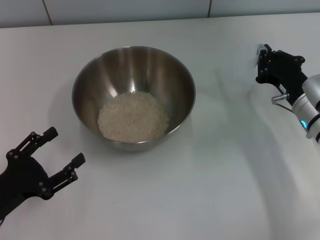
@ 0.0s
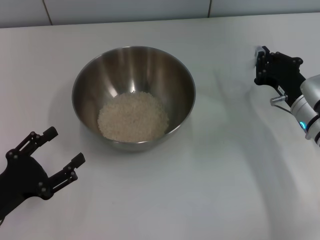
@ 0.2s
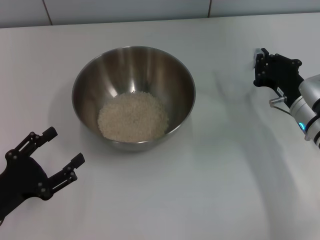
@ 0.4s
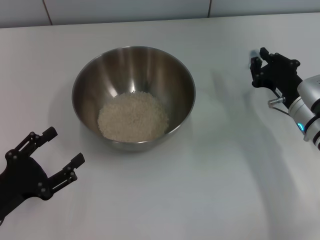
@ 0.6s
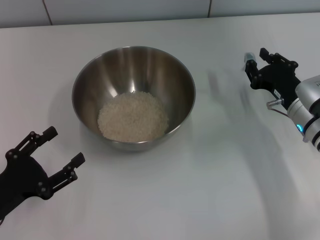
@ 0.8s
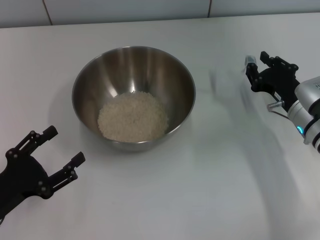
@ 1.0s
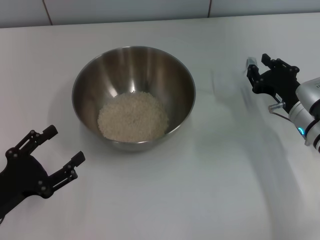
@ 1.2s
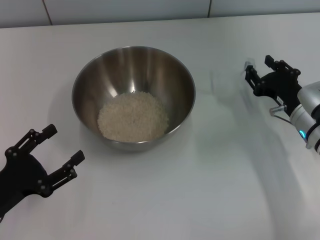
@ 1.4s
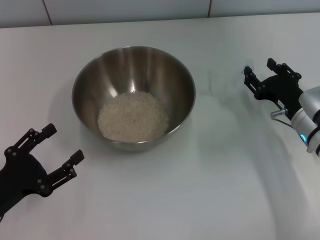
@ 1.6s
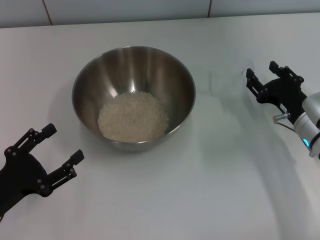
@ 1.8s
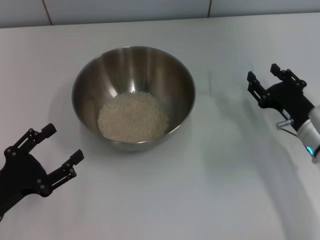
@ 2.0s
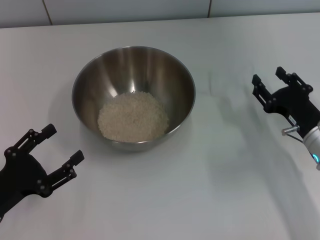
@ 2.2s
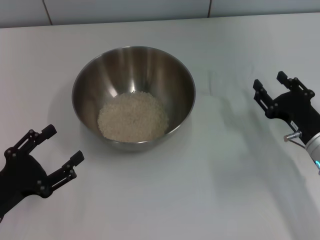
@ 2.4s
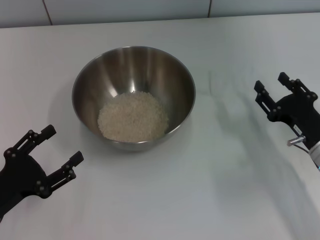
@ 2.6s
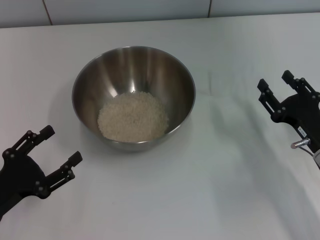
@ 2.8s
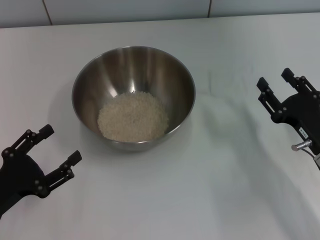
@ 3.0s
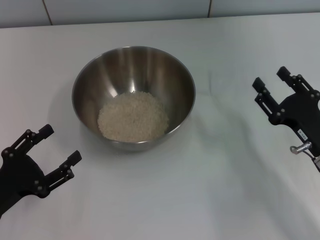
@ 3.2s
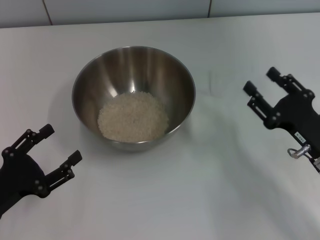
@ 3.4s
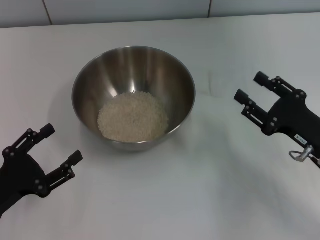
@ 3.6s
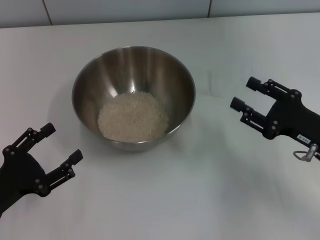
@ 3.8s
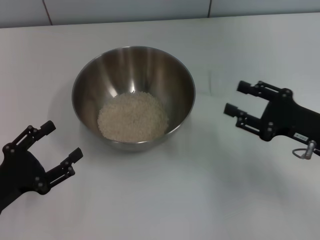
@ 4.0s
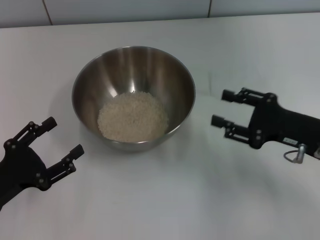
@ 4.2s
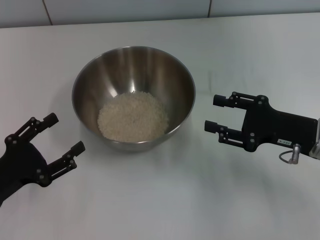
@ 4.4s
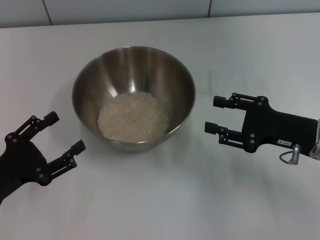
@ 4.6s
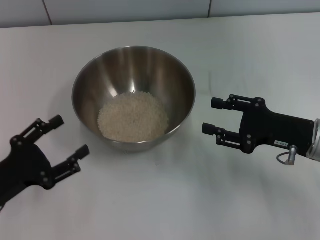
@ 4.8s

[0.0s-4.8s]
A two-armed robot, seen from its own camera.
Task of the whole recording: Place the bowl in the middle of the table with one hand and pour the rice from the grain cup into it with the other hand.
Step, 0.0s to 2.0s: Place the cup on the table with the right gripper.
0.0s to 1.6s: The right gripper opens its fingers.
1.6s to 3.2s: The right gripper travels backward by about 10 cm.
3.2s to 4.8s: The right gripper ends up about 5 cm from where it was.

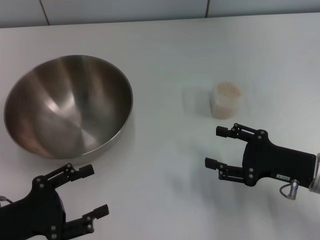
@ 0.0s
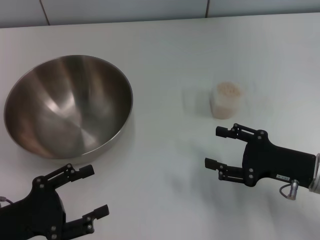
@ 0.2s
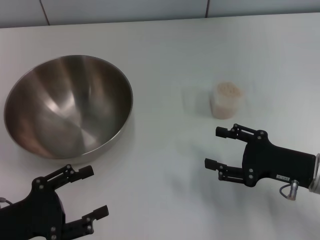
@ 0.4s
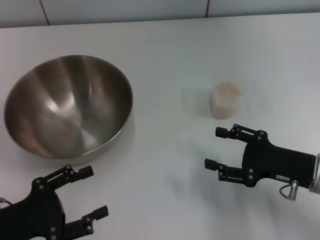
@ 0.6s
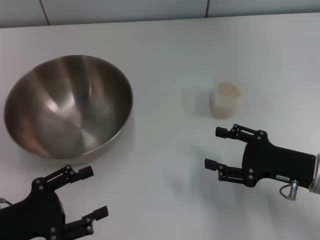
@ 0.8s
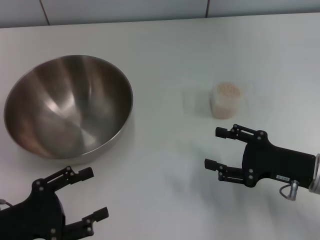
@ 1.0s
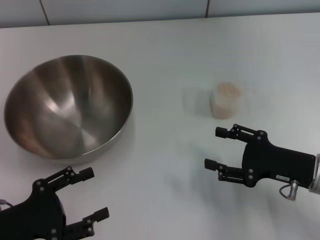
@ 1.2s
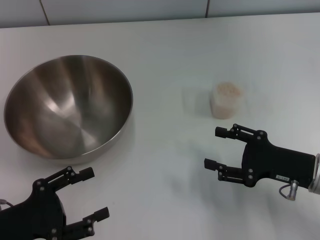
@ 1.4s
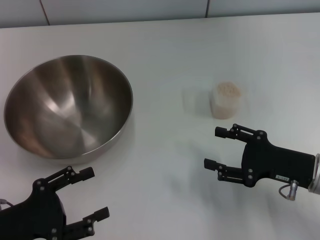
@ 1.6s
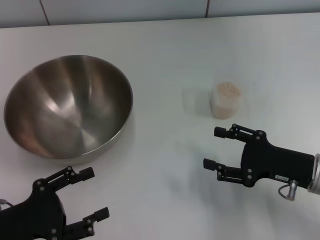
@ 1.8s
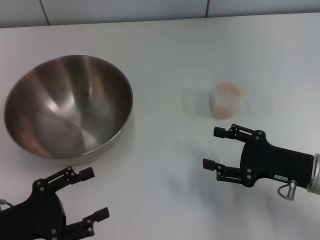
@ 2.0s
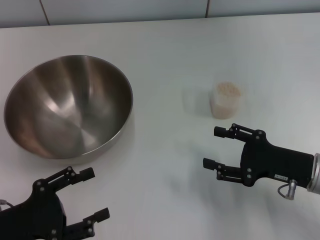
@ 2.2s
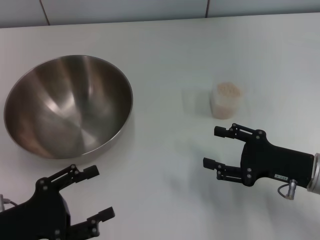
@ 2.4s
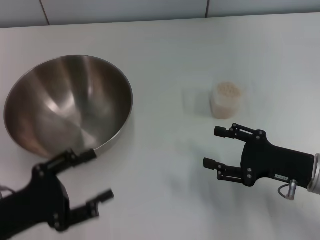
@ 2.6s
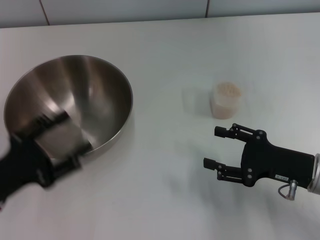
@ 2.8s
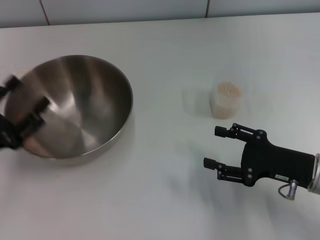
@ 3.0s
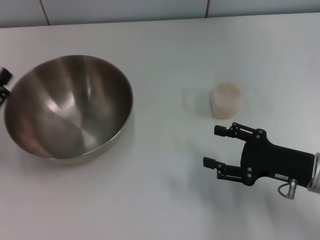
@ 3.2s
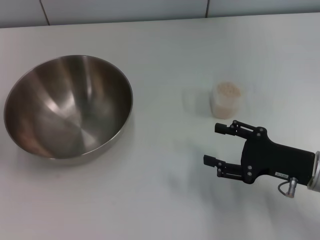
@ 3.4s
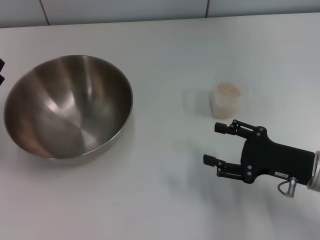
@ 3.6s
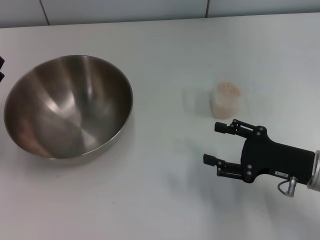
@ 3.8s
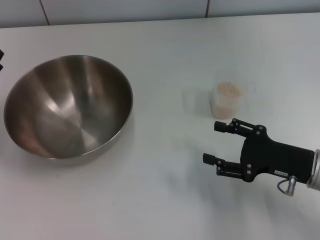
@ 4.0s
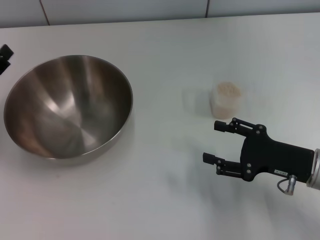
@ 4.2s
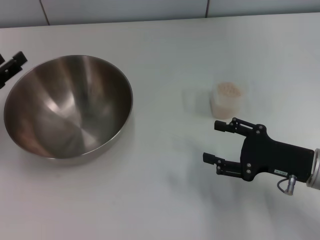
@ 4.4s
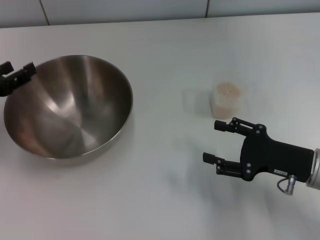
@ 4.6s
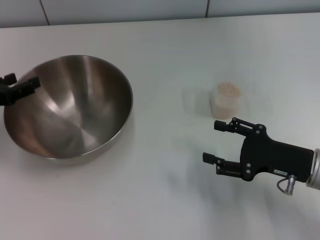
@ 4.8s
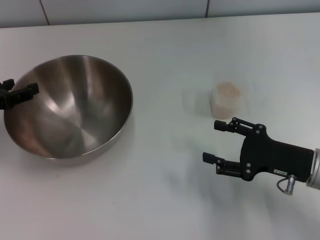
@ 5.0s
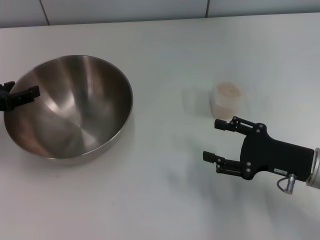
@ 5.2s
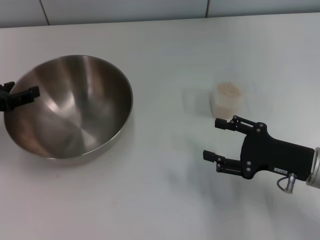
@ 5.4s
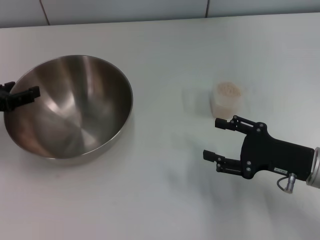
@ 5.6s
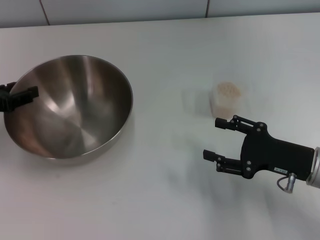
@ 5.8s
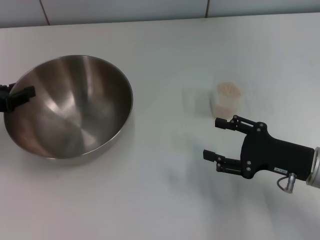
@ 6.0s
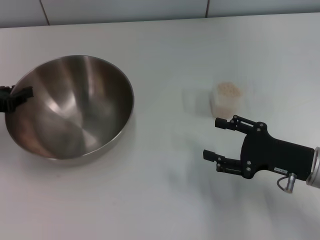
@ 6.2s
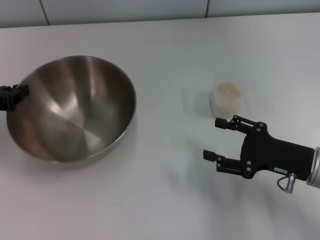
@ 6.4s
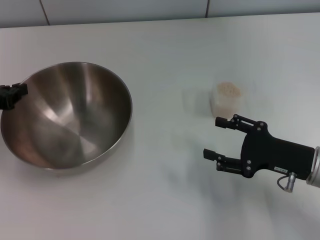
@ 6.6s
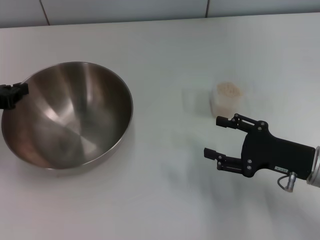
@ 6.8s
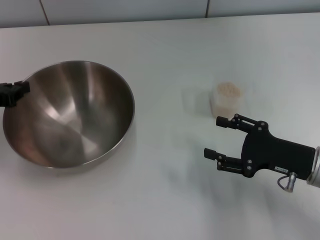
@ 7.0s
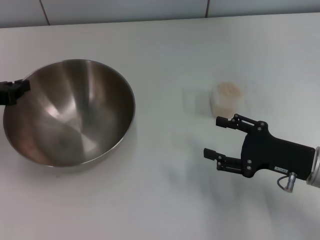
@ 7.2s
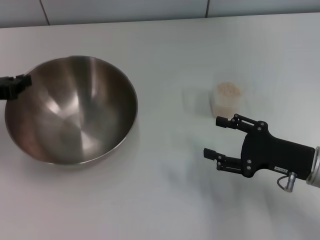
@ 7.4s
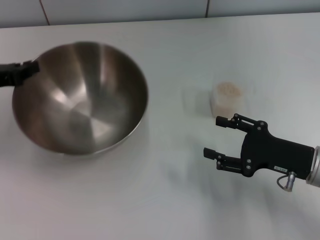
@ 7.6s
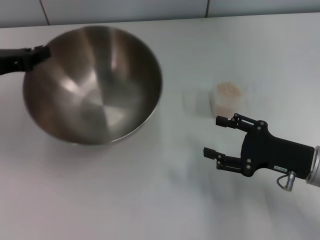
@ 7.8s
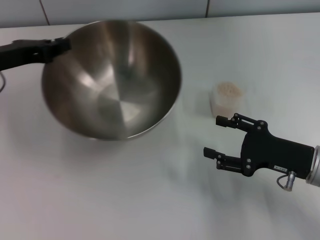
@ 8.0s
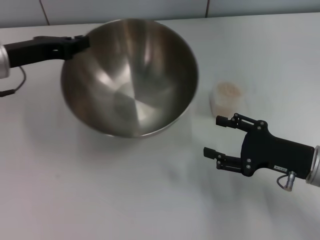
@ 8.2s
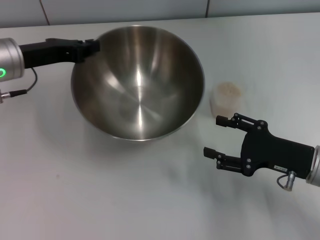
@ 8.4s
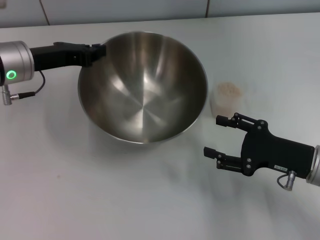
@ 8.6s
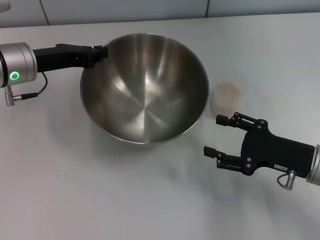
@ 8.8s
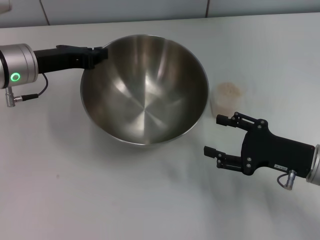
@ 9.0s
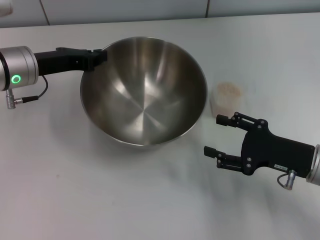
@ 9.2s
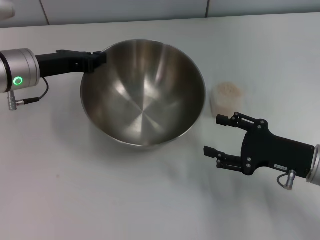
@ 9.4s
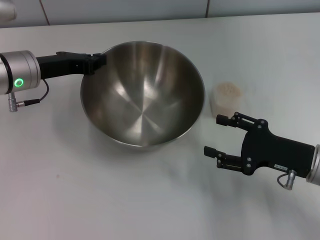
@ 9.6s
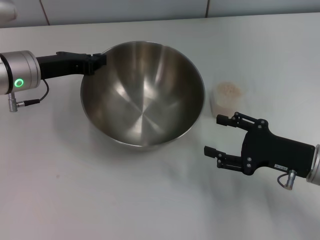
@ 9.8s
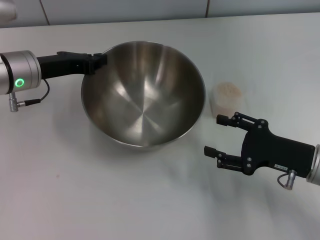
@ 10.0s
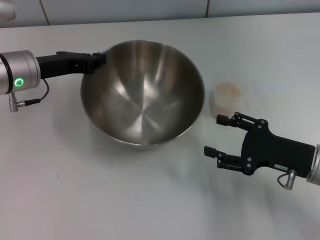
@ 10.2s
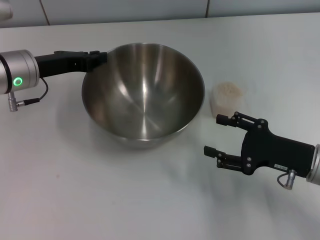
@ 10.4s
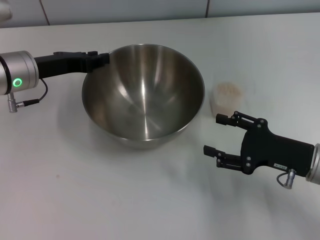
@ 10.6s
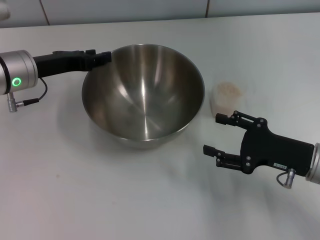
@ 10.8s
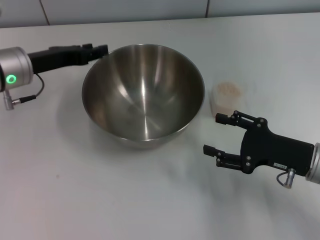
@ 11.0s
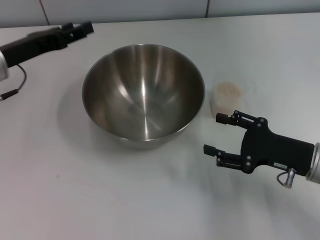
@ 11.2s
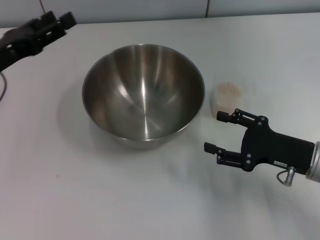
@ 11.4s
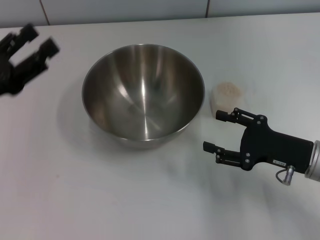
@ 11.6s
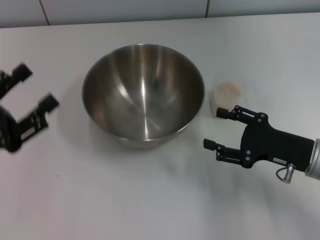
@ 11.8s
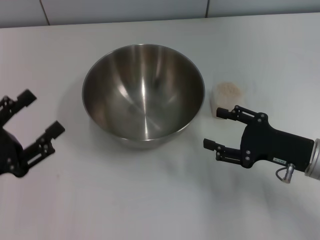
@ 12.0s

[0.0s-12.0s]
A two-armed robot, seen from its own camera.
Task of the whole recording: Place the bowl in the middle of the table with one hand and pour the rice from the grain cup into it with the other hand.
Step, 0.0s to 7.6s: Pick up the bowl with the left gripper.
Step, 7.8s to 11.2s: Place the bowl in the center of view with the left gripper.
0.0s to 1.6s: Both grippers stay put.
1.6s to 3.0s: The left gripper shifts by approximately 5 cm.
3.0s to 4.4s: The left gripper heads forward, covering roughly 10 cm.
6.0s to 7.6s: The left gripper closes up.
7.6s to 9.0s: The left gripper goes about 10 cm to the right and forward.
9.0s to 10.4s: Neither gripper changes place.
10.4s to 12.0s: The left gripper is displaced backward by about 20 cm, and opens up.

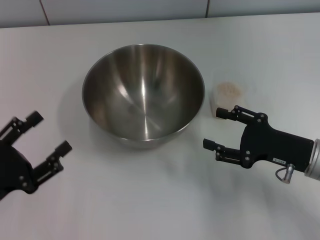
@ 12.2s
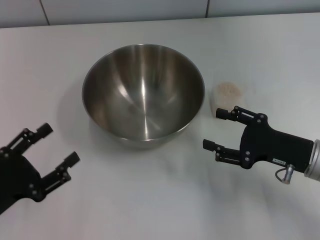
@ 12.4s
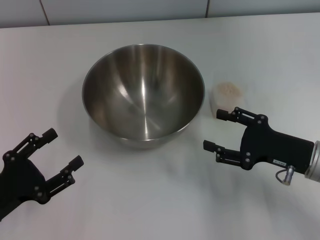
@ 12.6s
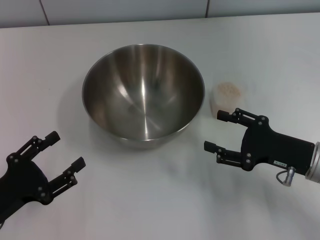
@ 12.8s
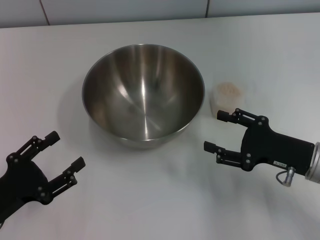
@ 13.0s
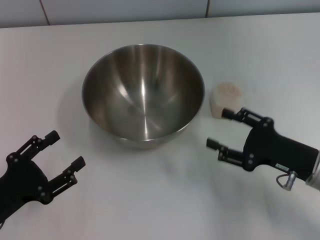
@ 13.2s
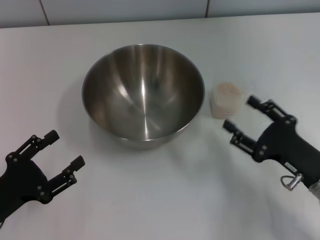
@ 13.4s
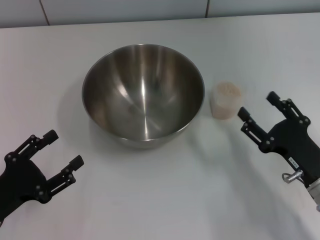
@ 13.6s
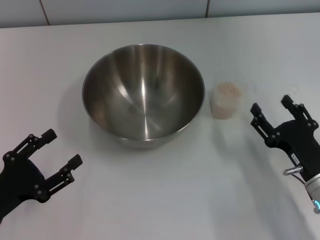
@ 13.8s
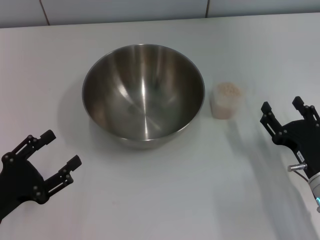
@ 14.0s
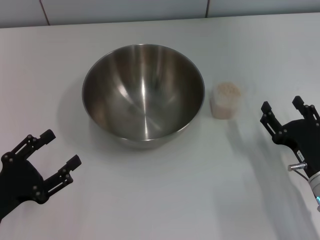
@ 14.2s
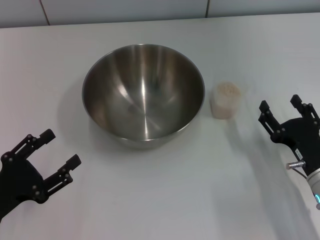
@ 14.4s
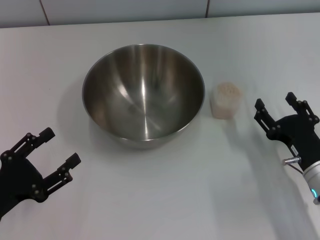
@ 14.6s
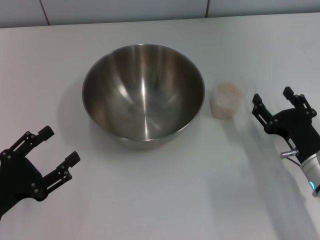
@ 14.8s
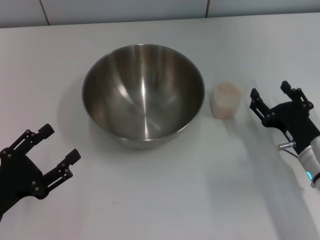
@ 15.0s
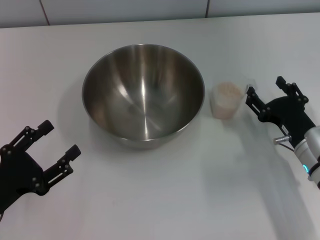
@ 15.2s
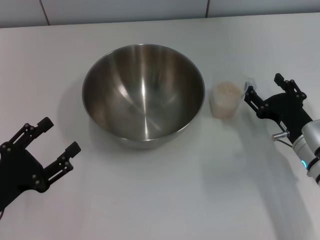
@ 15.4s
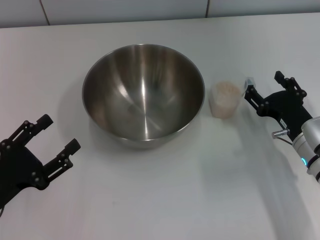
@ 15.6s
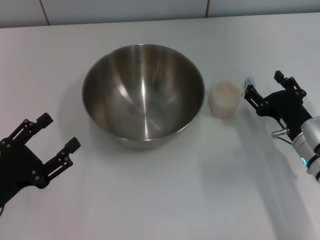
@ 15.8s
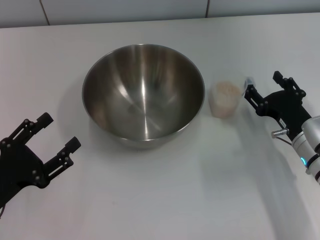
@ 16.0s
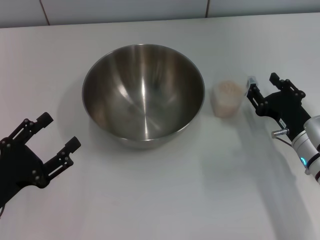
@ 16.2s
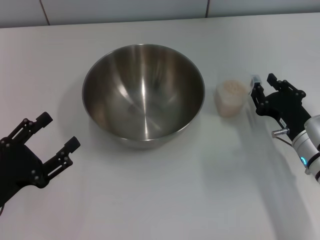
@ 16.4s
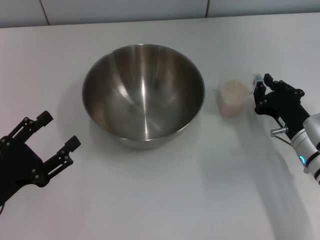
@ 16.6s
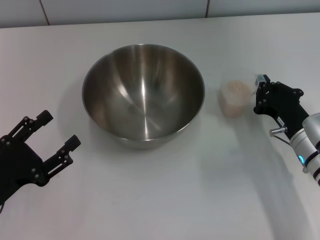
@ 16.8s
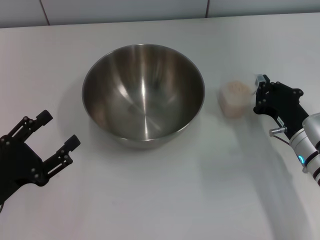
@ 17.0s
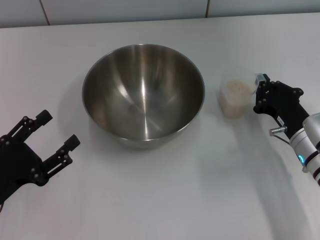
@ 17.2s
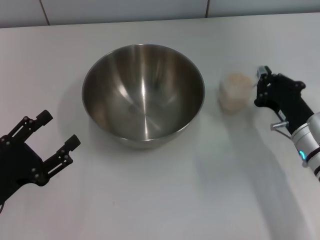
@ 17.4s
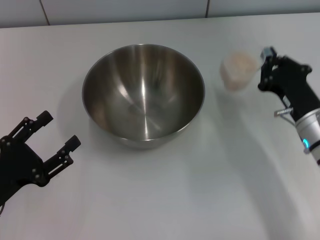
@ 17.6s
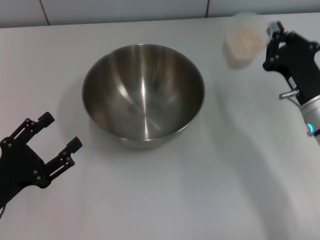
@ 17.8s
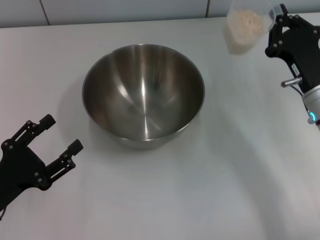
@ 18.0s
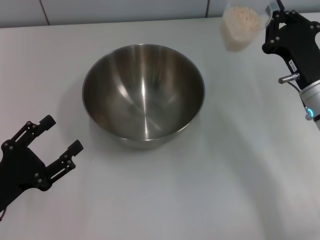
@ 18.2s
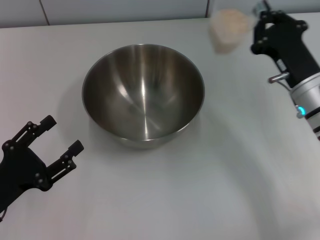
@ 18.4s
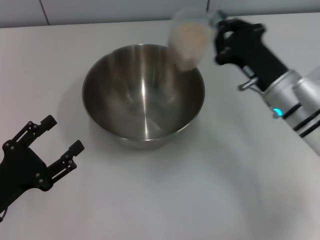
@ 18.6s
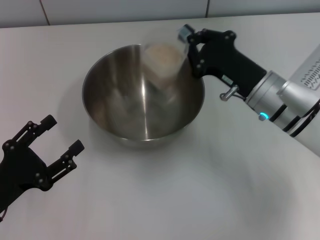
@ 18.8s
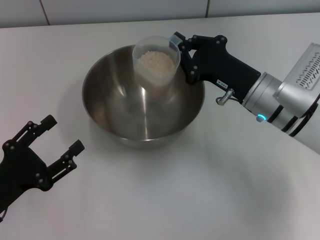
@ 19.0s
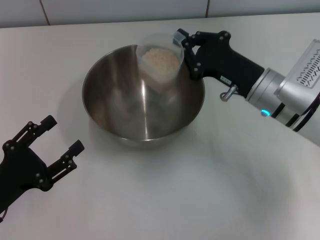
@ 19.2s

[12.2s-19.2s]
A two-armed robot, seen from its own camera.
Task of the whole recording: Place the bowl in the middle of the table with one hand and pour the rice from the grain cup into it with the other hand.
Step, 12.2s to 17.8s: Pick up the cup with rice in it with the right gripper.
12.2s to 13.6s: The right gripper travels backward by roughly 5 cm.
13.6s to 15.0s: The right gripper goes some 5 cm forward.
15.0s to 16.4s: The grippers move only a little.
16.4s to 17.8s: The right gripper shifts about 5 cm upward, and closes.
17.8s to 19.2s: The right gripper heads to the left, covering approximately 5 cm.
